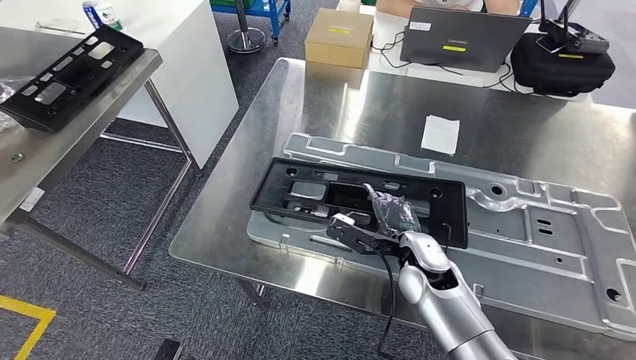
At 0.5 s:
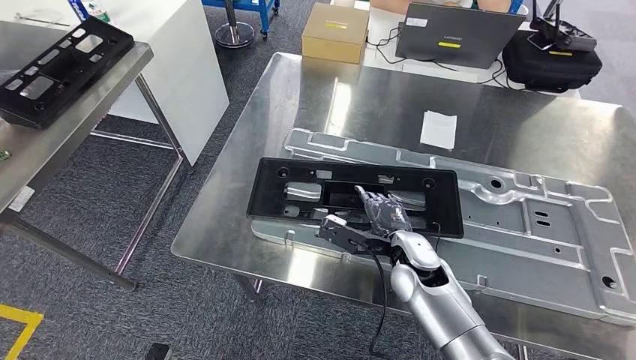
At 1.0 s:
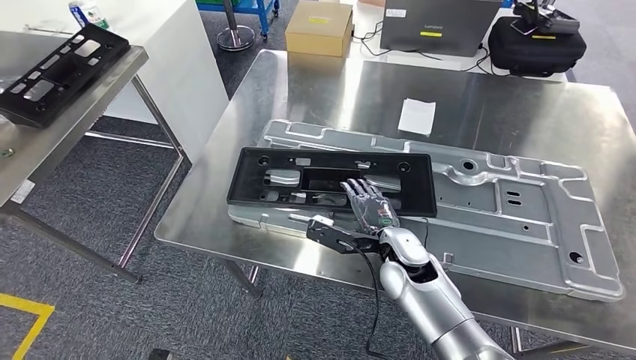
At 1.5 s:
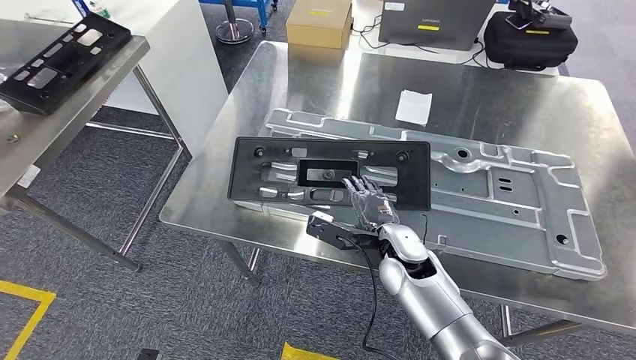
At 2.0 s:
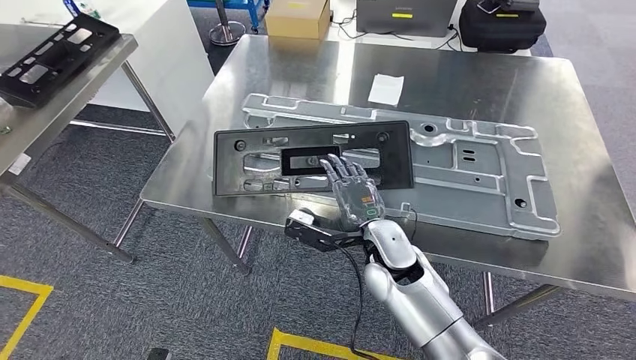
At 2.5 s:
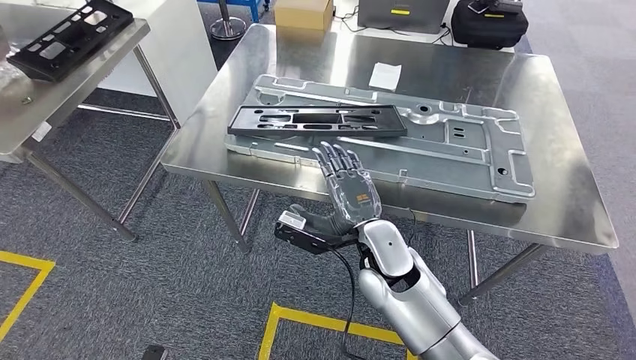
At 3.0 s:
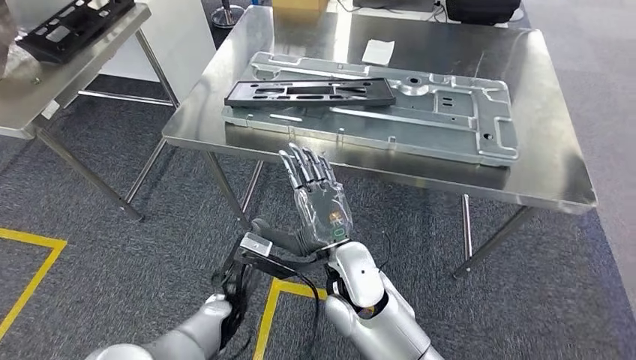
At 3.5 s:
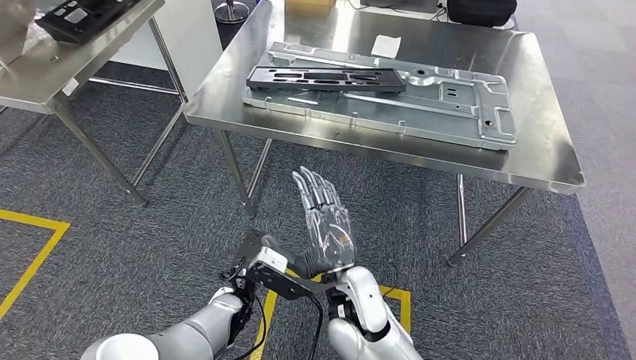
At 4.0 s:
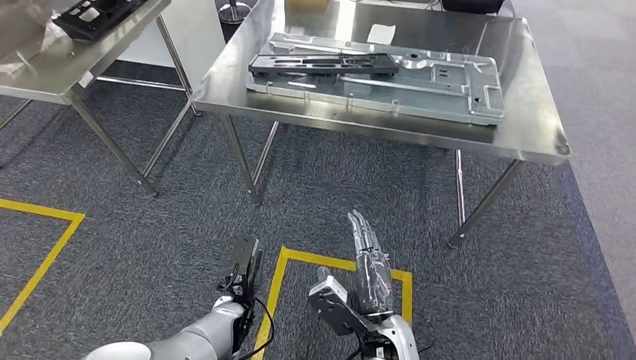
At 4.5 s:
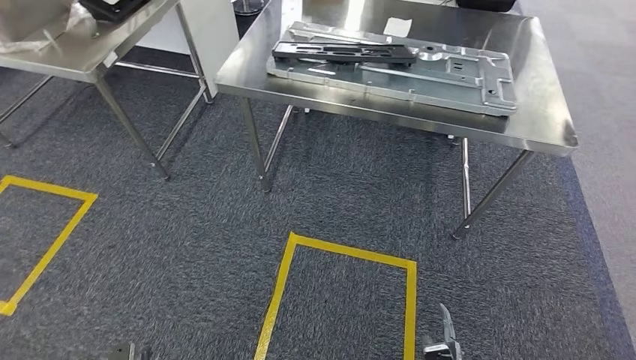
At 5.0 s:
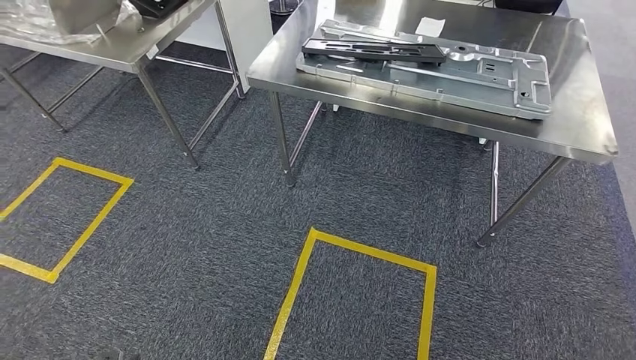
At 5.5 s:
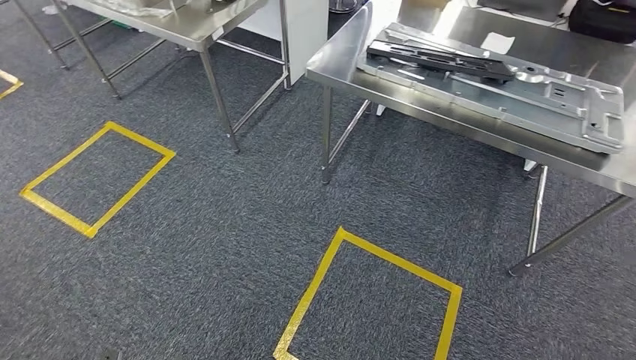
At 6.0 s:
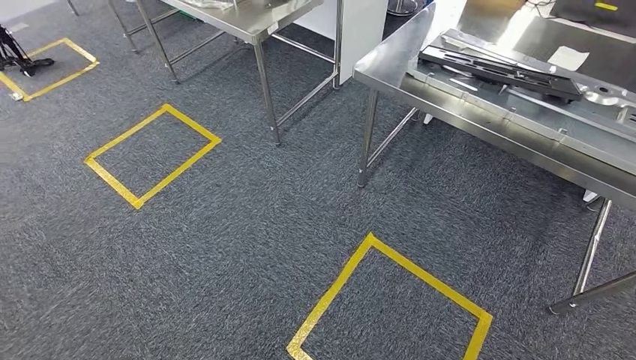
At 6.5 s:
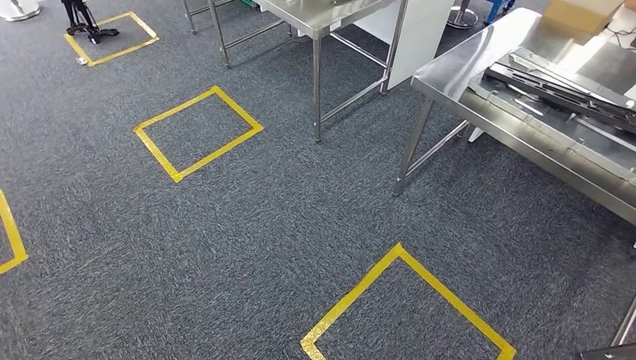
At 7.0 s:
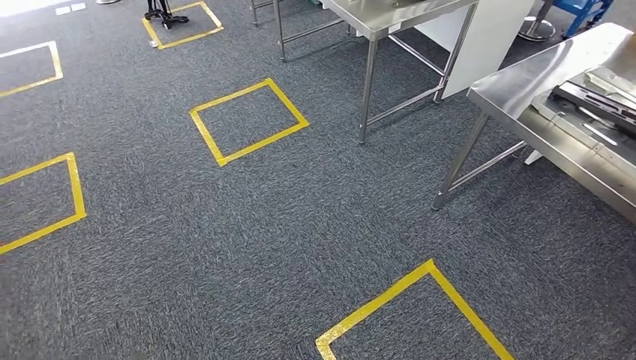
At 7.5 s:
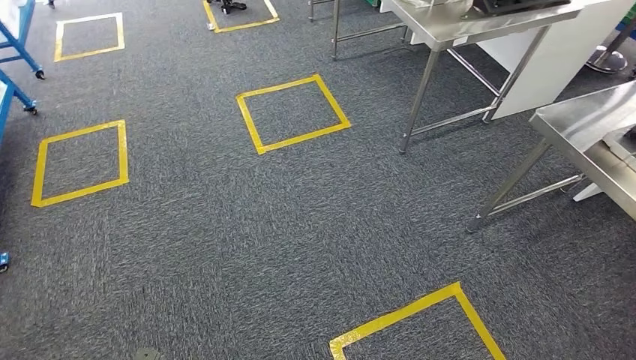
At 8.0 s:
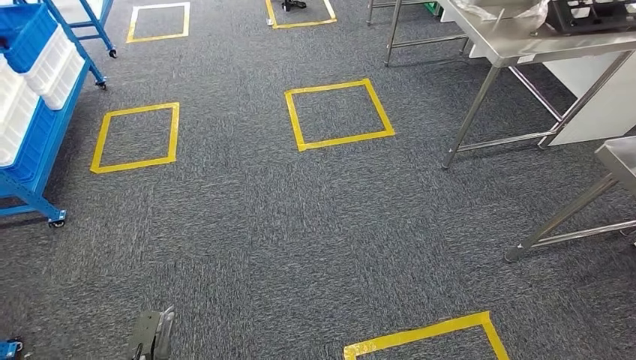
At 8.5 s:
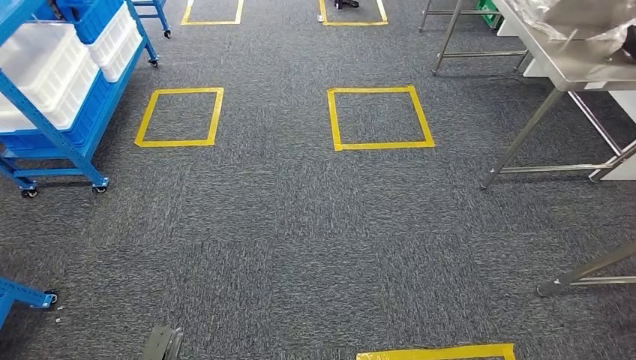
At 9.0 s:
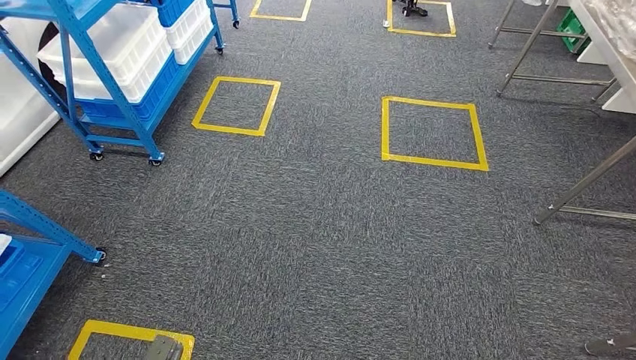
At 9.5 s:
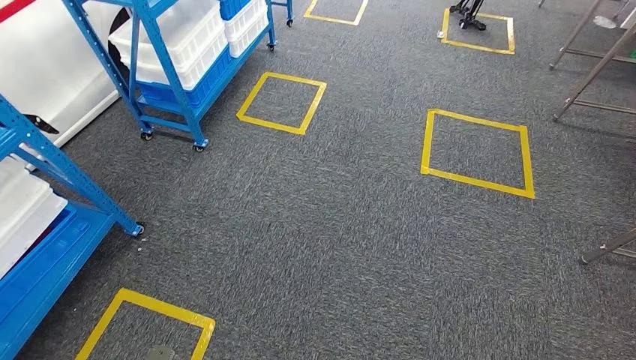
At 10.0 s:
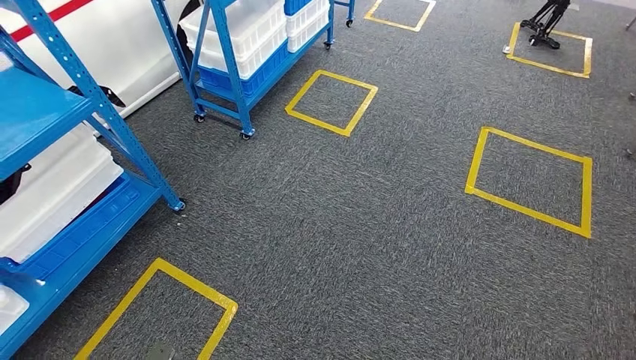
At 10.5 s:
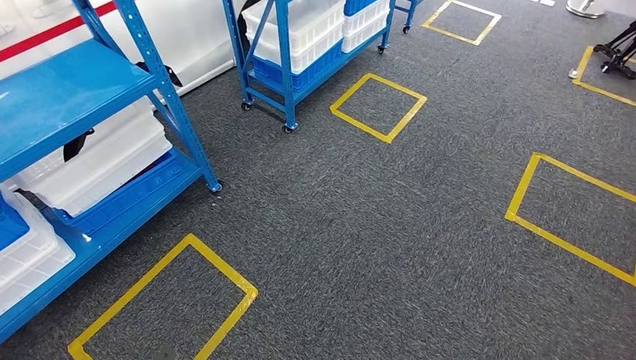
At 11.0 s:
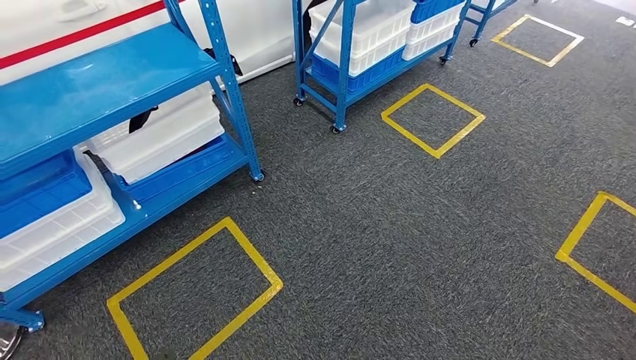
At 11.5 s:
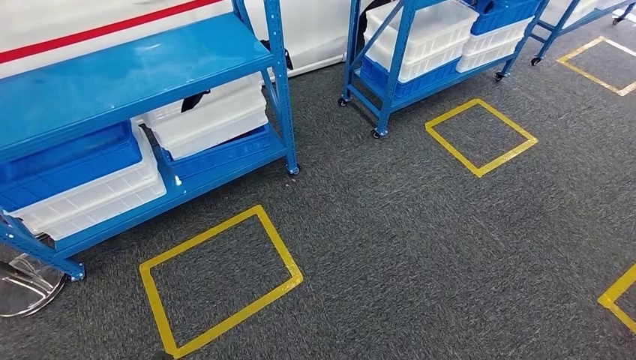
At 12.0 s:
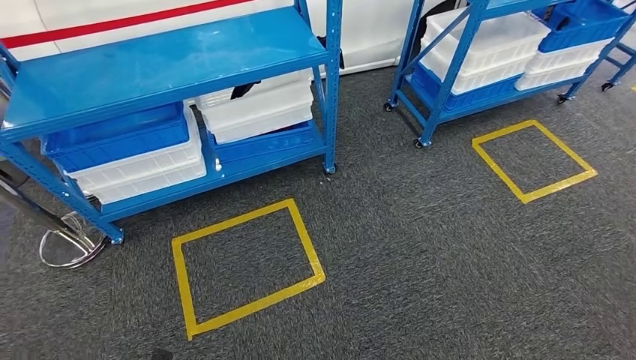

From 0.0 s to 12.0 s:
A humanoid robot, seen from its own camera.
Step, from 0.0 s to 5.0 s: Insert the large material into the corresponding slot on the workbench.

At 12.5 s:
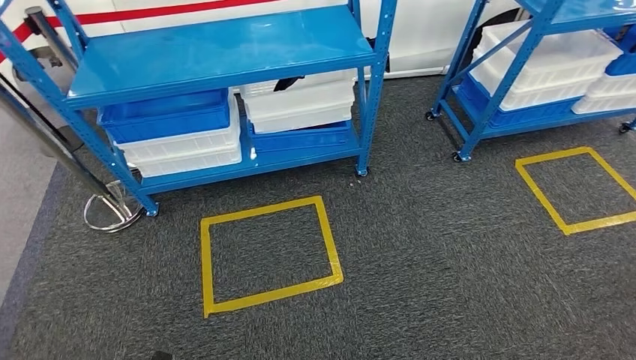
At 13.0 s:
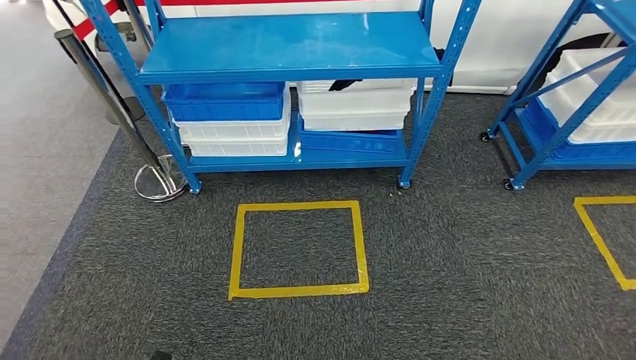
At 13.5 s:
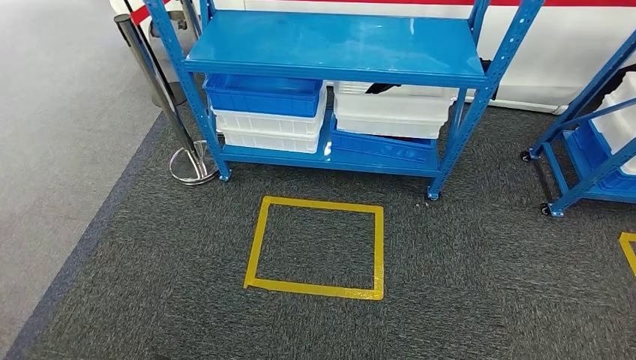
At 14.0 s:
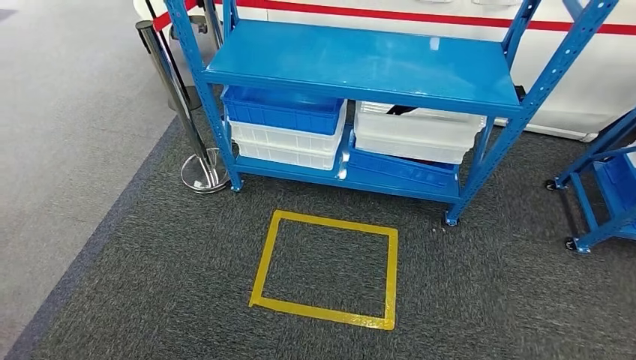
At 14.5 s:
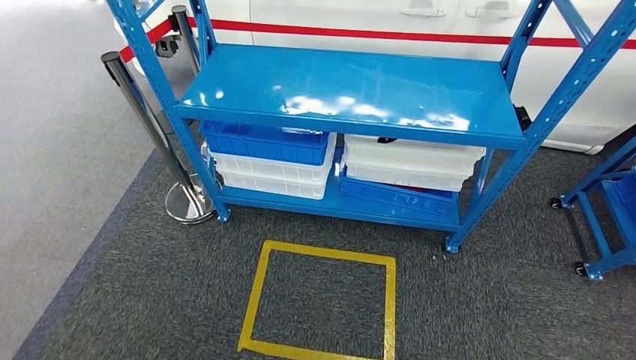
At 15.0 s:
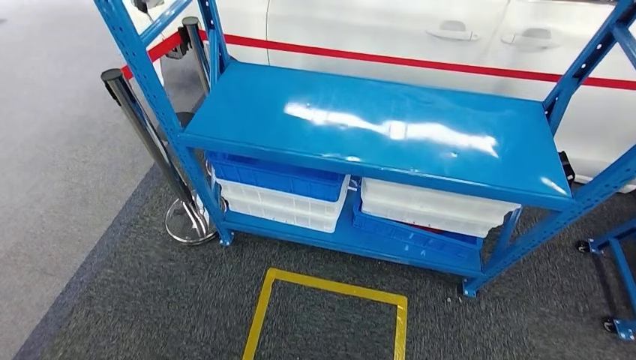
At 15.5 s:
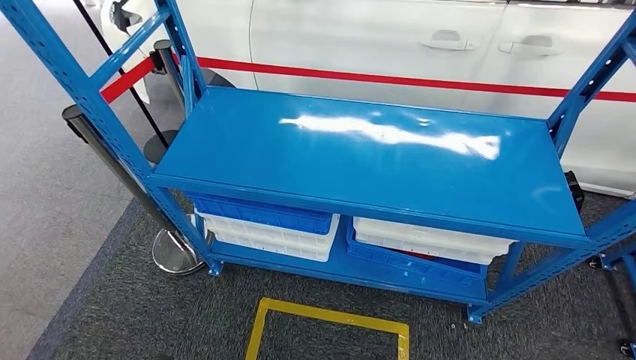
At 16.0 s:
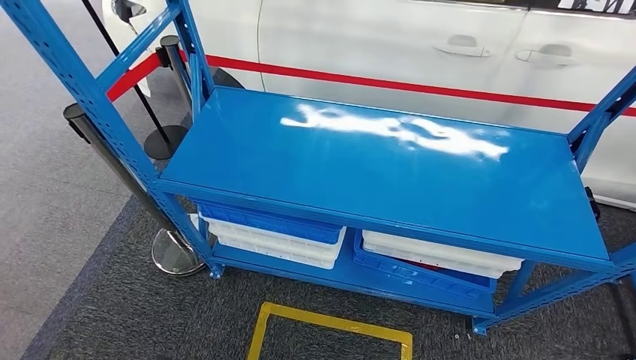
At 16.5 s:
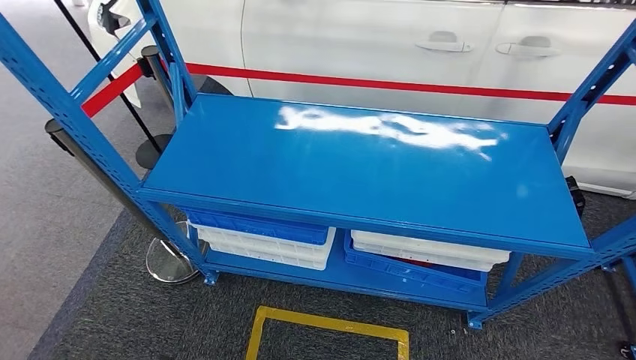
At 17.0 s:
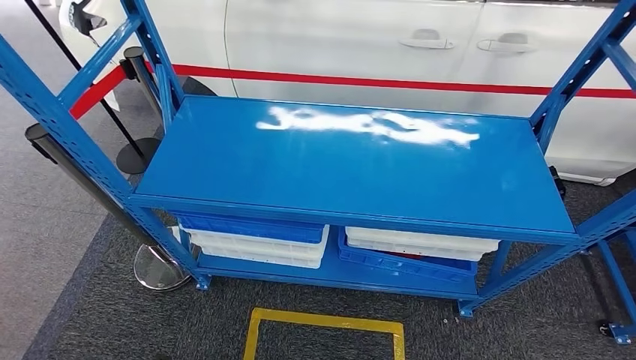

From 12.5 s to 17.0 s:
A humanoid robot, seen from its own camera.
Step, from 12.5 s to 17.0 s: Move to the initial position of the shelf.

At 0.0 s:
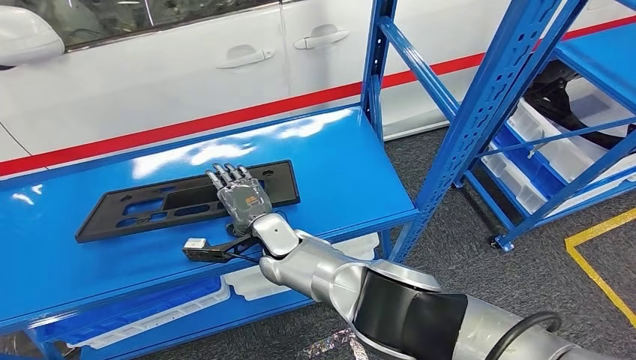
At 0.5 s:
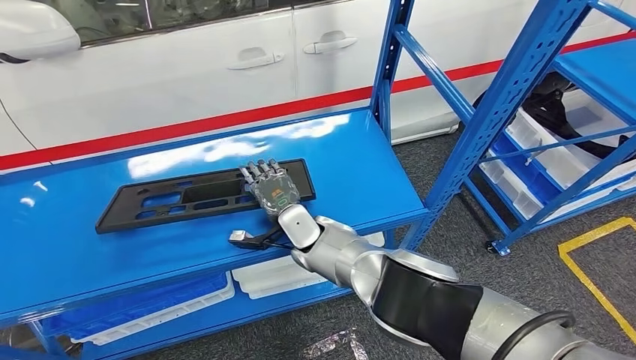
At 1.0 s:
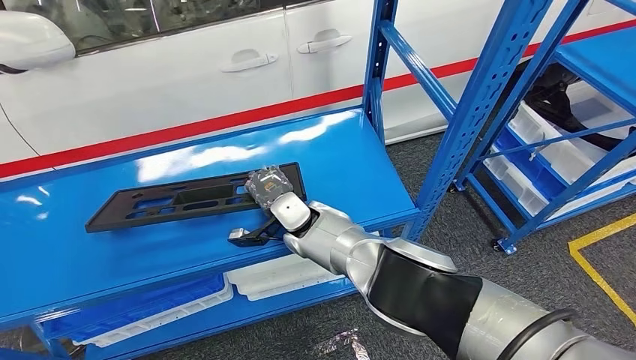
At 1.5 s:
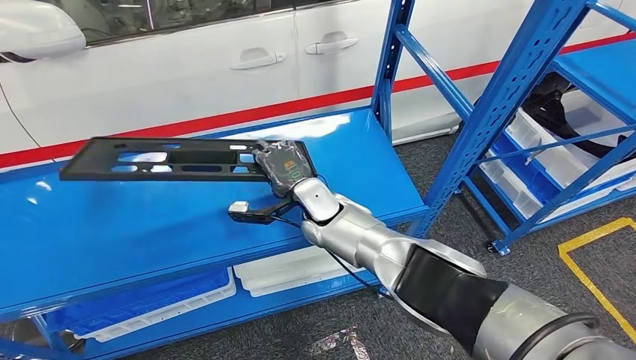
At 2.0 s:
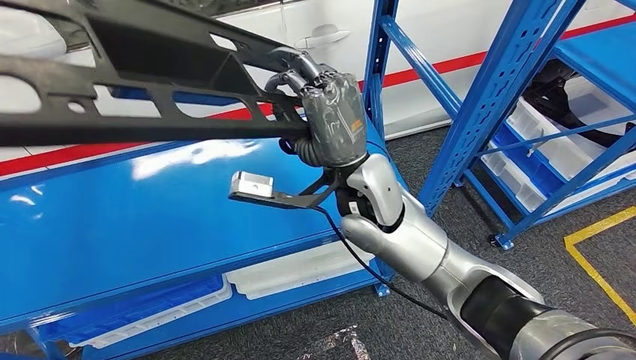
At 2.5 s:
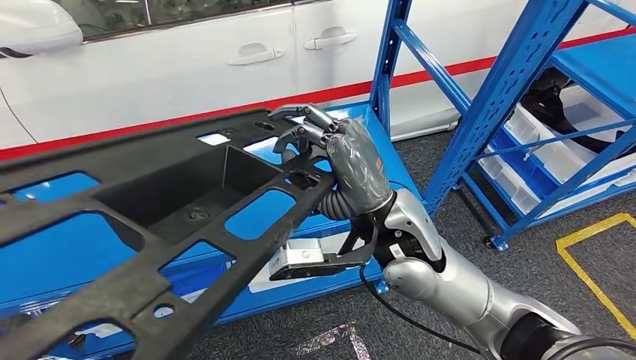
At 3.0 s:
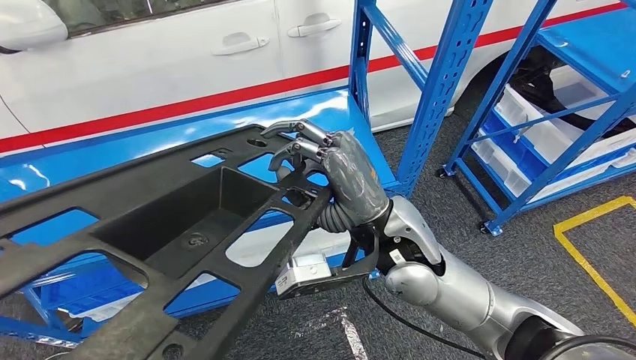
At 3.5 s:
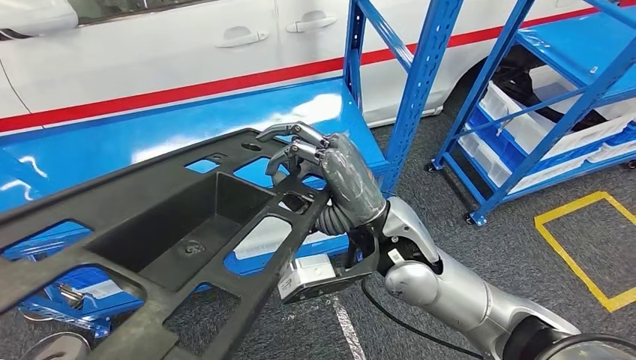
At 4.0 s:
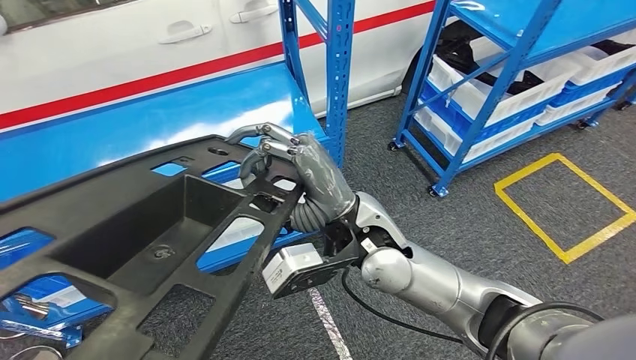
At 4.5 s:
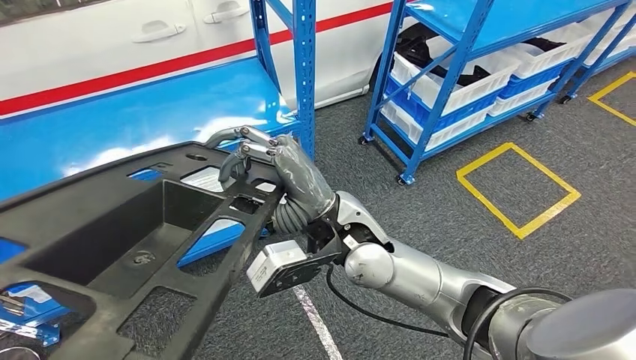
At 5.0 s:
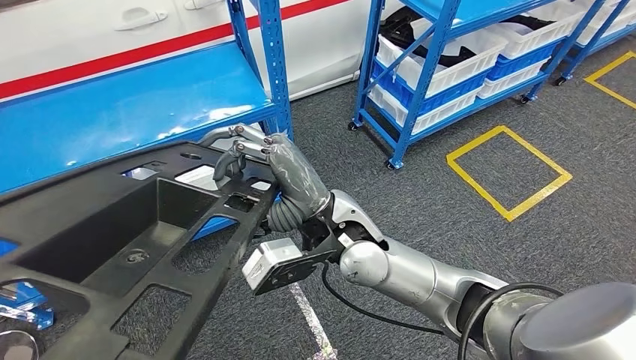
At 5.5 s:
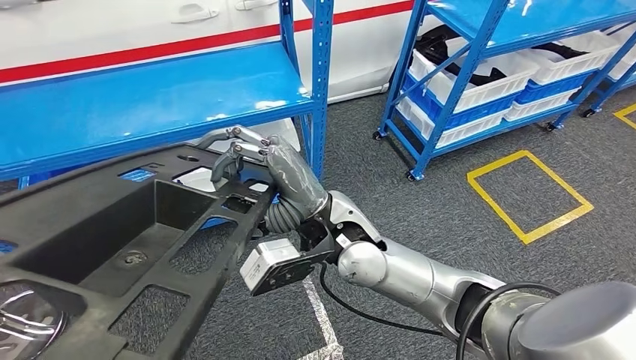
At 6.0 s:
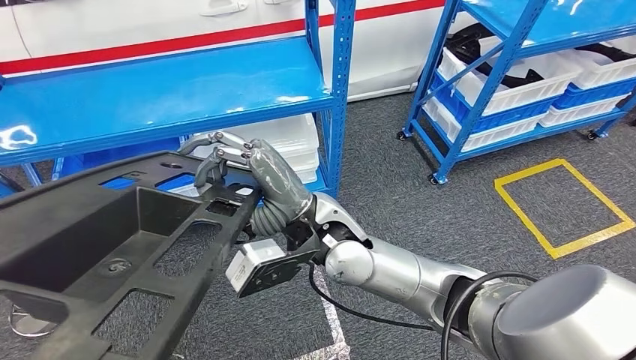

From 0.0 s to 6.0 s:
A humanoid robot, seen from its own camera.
Step, from 0.0 s to 5.5 s: Pick up the large material from the shelf.
